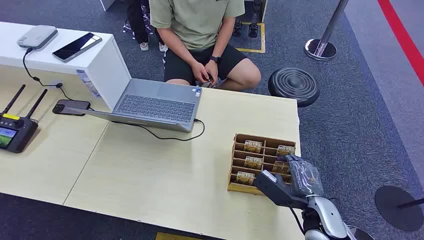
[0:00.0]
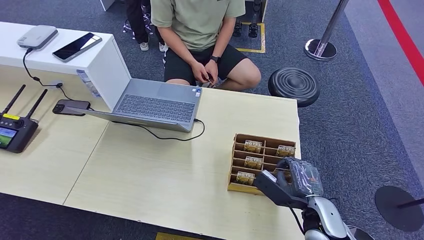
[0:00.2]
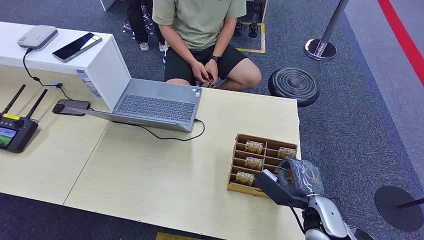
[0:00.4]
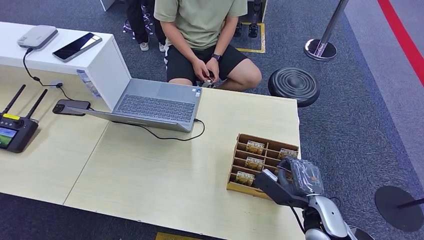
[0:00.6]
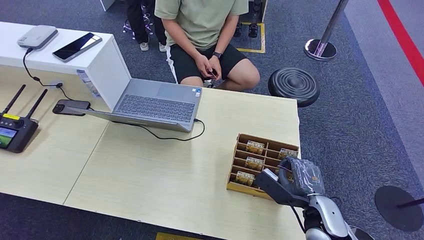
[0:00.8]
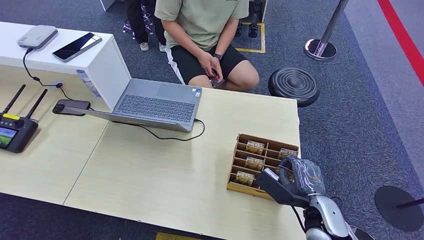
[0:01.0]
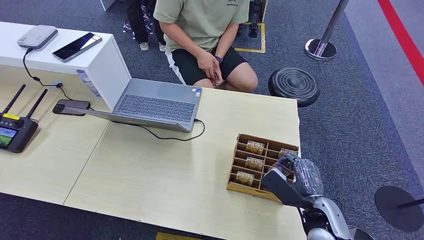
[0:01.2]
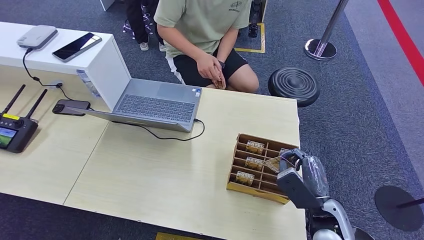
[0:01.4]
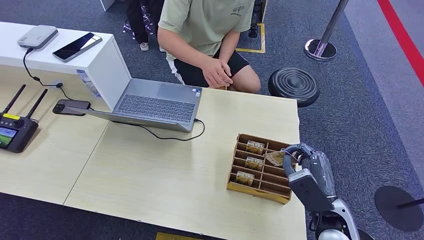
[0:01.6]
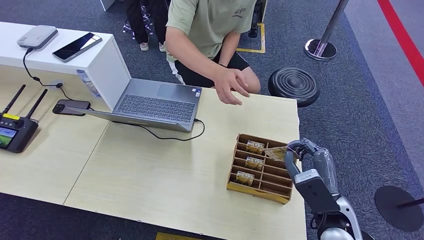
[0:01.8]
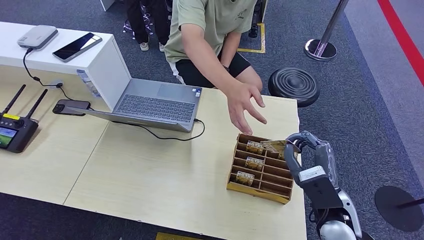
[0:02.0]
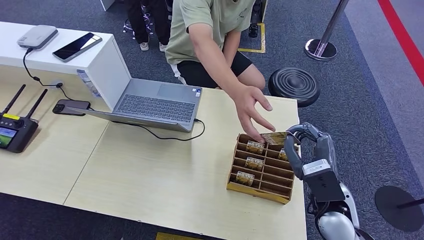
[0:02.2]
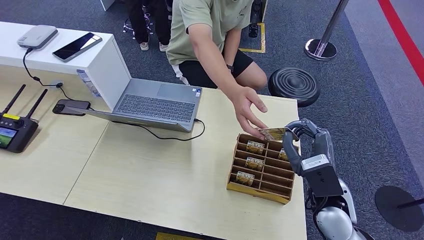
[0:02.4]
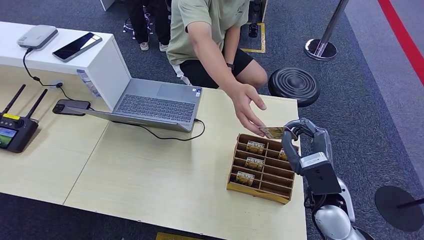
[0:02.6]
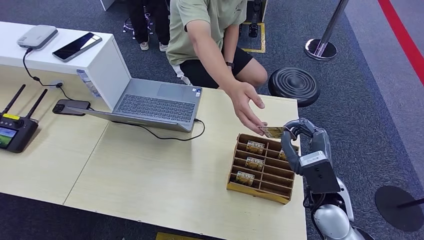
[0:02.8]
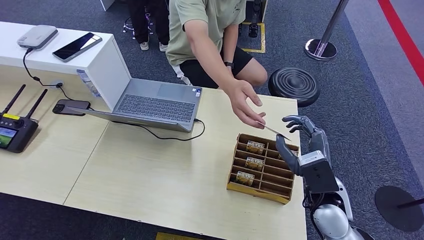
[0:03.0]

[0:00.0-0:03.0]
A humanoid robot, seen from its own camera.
Step, 0:00.0 to 0:02.4: Pick up the key card from the card box.
Step, 0:02.6 to 0:03.0: Hand the key card to the target.
0:01.6 to 0:03.0: The right hand ends up approximately 5 cm from where it was.

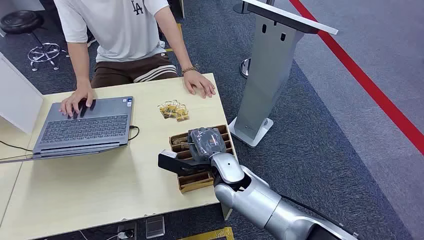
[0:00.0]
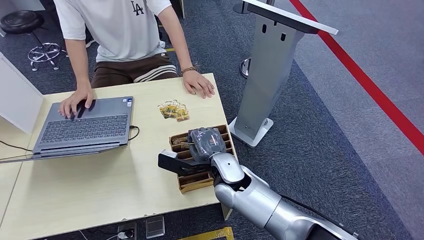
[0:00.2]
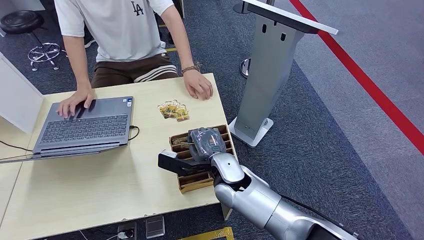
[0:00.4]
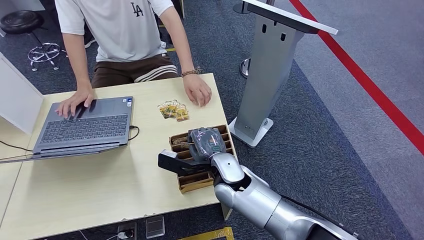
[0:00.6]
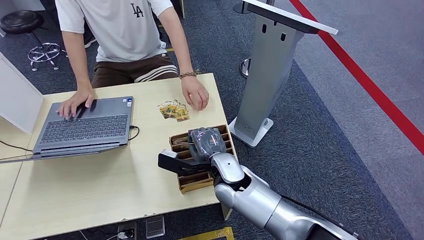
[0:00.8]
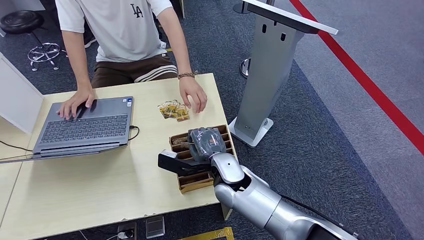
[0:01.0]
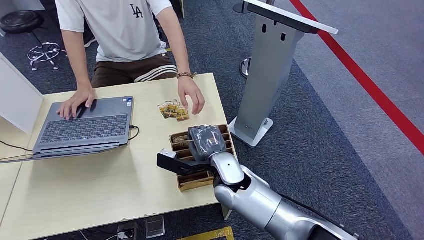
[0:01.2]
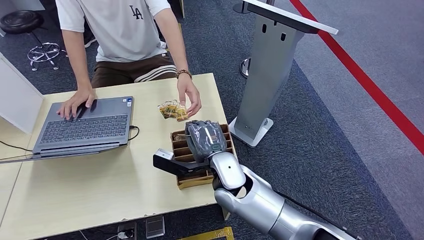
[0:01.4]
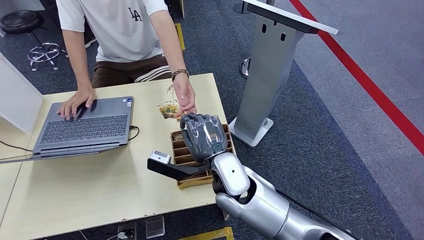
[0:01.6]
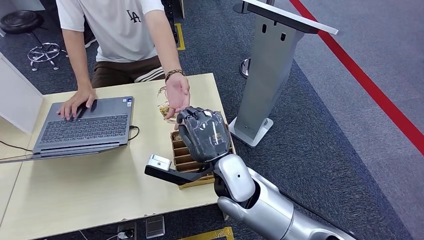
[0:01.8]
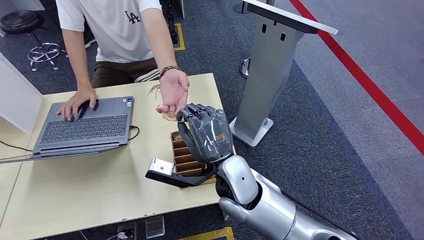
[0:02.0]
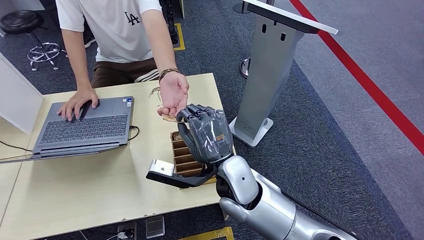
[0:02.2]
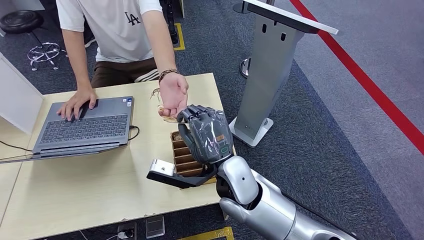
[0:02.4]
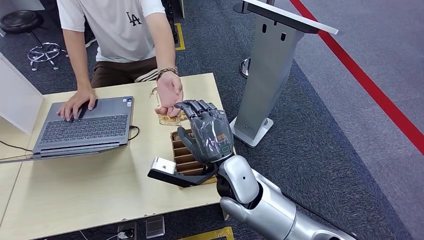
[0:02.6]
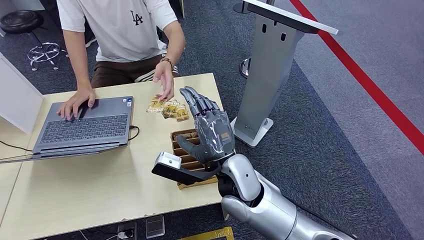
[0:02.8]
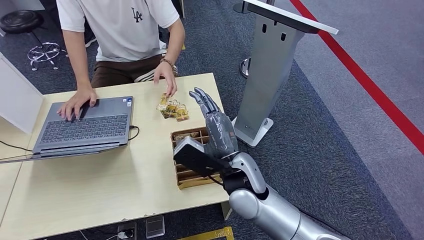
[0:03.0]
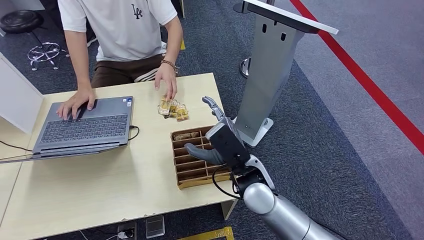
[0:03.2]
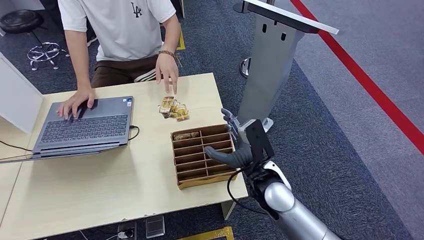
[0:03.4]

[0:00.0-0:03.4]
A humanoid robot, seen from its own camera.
Step, 0:00.0 to 0:01.2: Pick up the key card from the card box.
Step, 0:01.6 to 0:03.4: Hand the key card to the target.
0:01.6 to 0:03.4: The right hand travels to the right by roughly 10 cm.

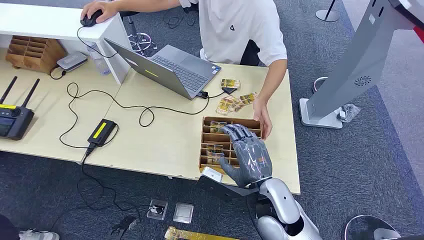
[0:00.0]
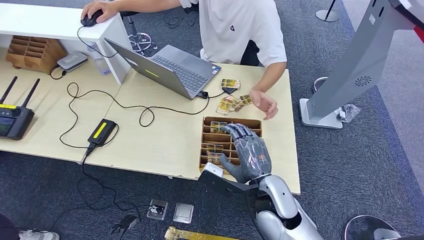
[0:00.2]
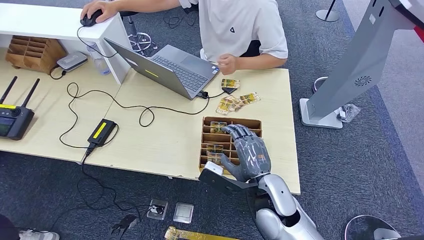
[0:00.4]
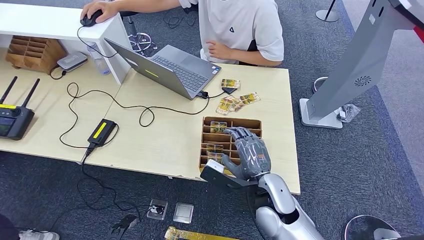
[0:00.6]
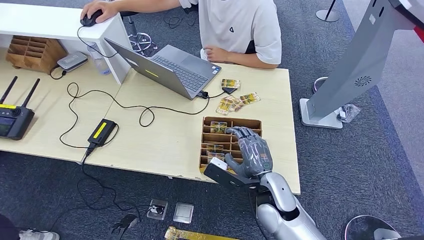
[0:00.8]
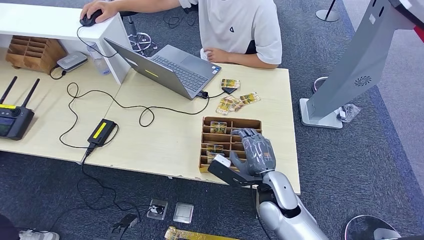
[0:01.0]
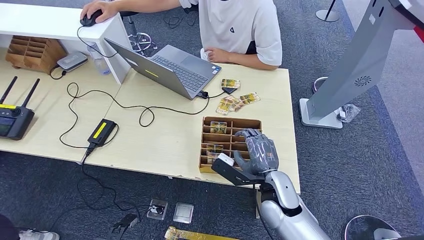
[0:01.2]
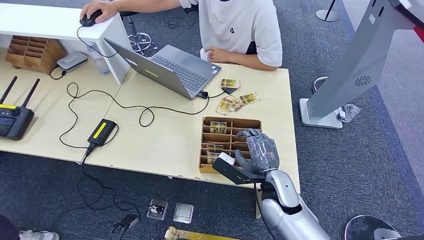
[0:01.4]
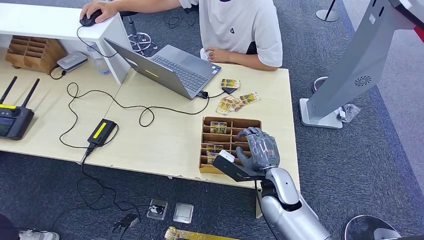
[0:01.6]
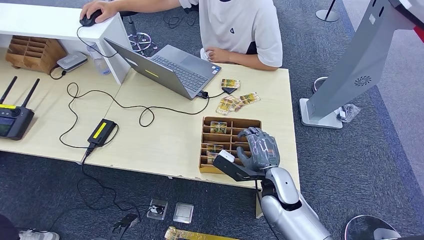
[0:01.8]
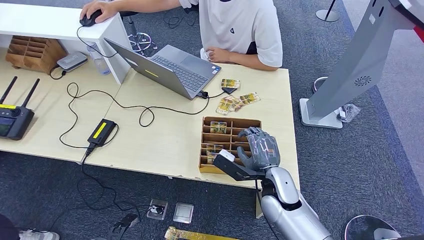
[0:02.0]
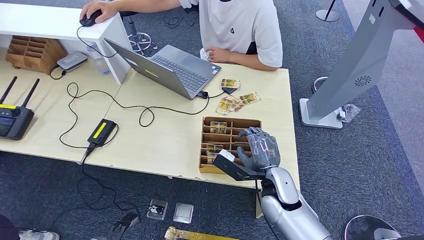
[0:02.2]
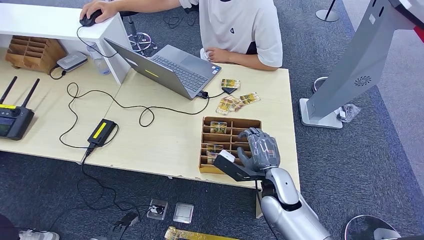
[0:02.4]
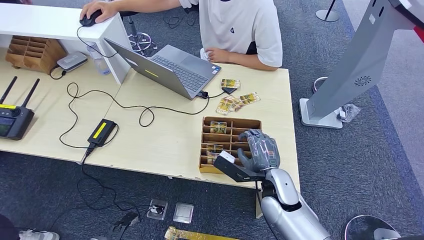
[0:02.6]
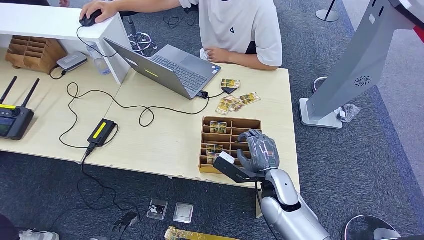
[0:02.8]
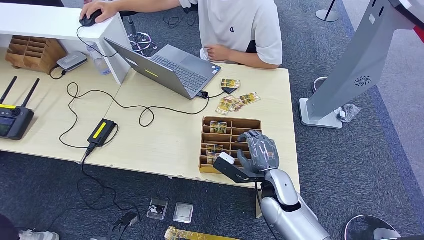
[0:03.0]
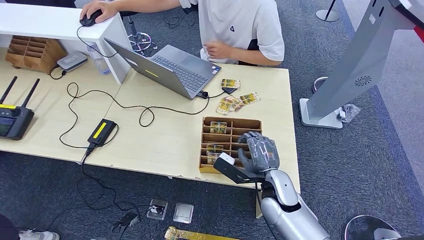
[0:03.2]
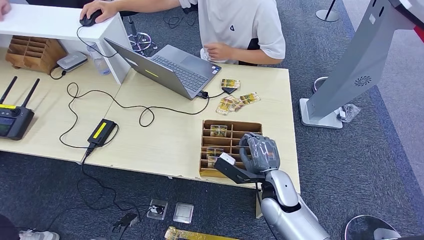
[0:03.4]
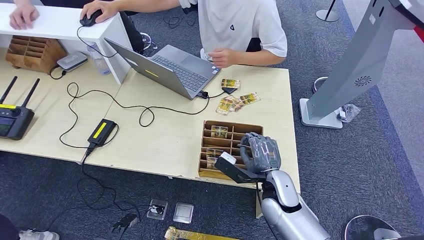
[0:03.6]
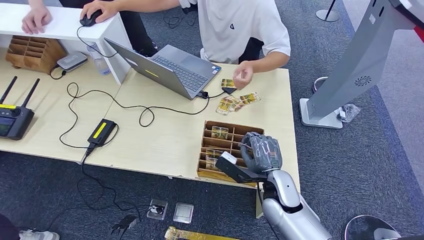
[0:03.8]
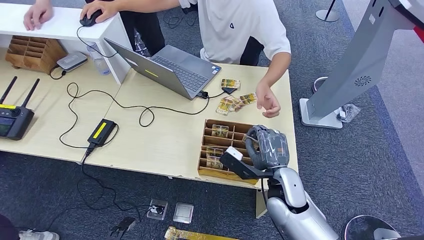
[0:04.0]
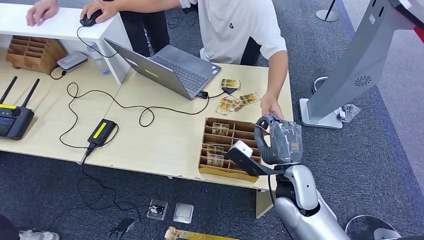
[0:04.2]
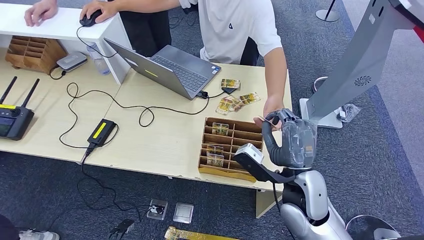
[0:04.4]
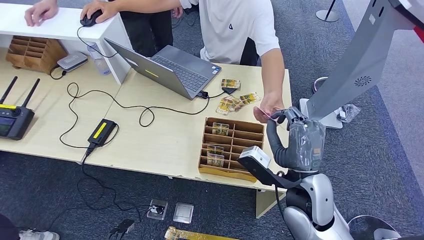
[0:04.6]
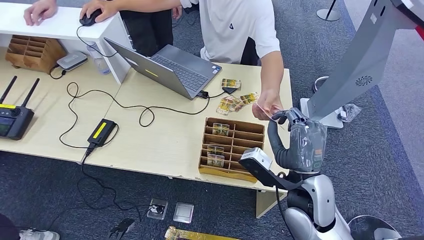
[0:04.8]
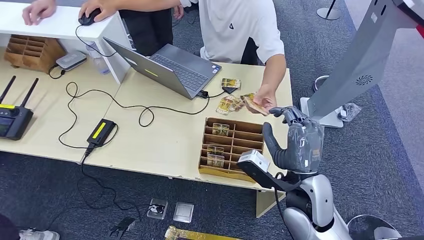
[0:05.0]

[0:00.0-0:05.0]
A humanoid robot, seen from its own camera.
Step, 0:00.0 to 0:03.6: Pick up the key card from the card box.
Step, 0:04.0 to 0:04.8: Hand the key card to the target.
0:01.6 to 0:03.4: The two hands keep their place.
